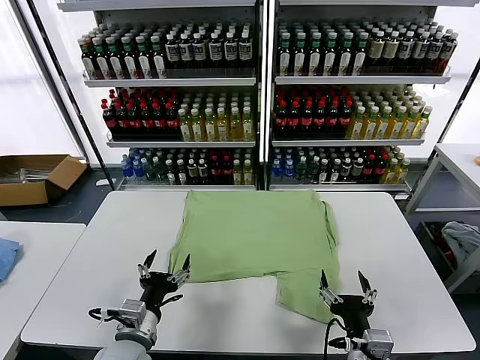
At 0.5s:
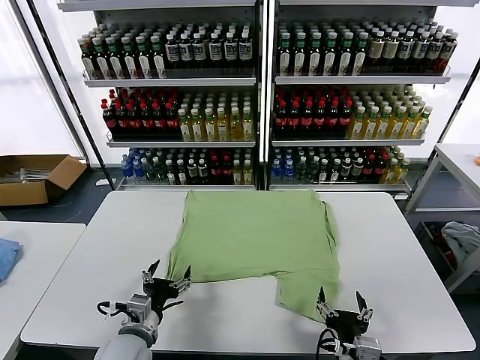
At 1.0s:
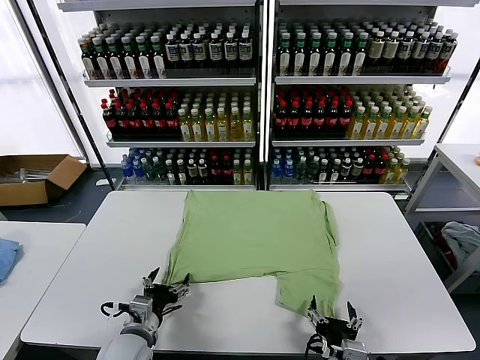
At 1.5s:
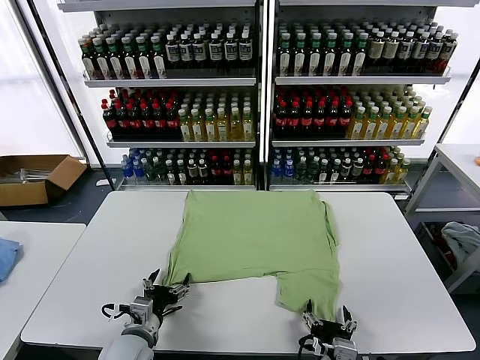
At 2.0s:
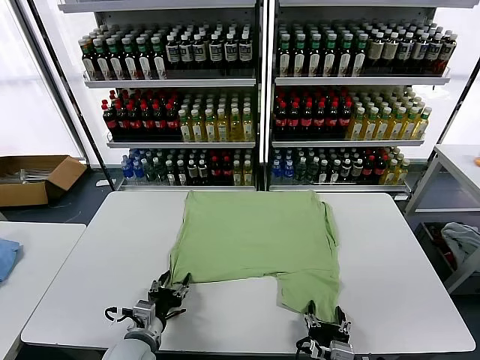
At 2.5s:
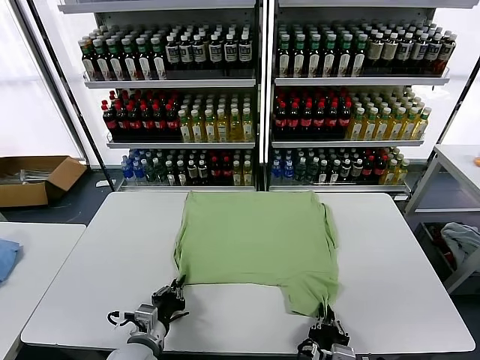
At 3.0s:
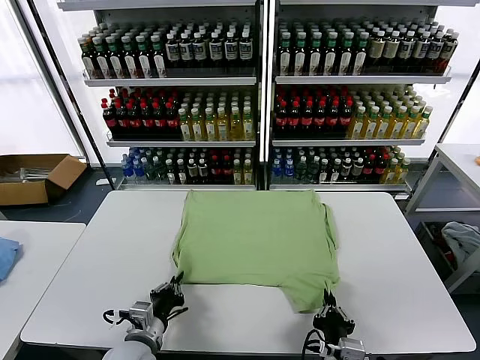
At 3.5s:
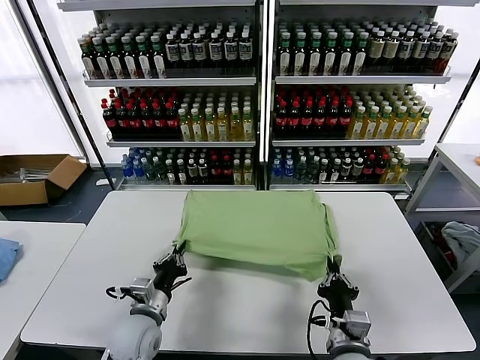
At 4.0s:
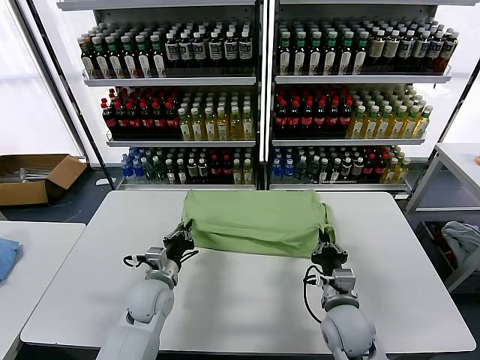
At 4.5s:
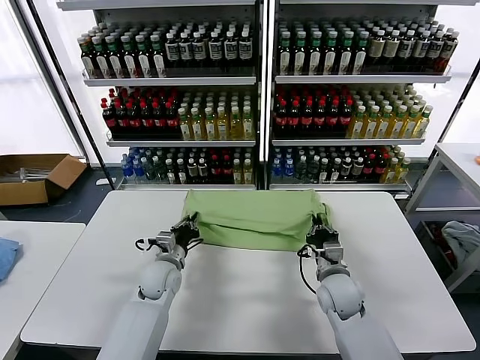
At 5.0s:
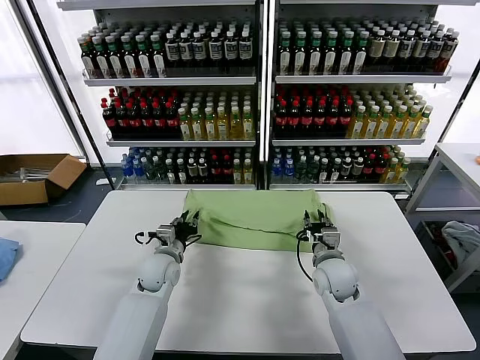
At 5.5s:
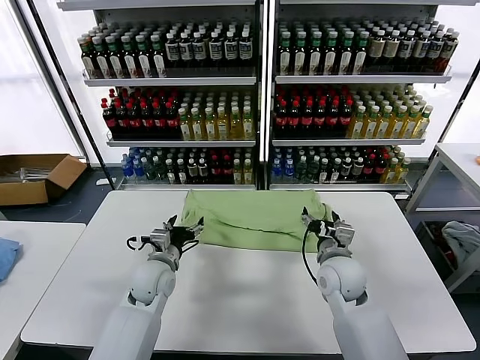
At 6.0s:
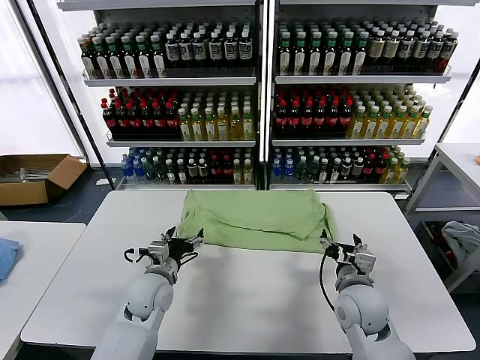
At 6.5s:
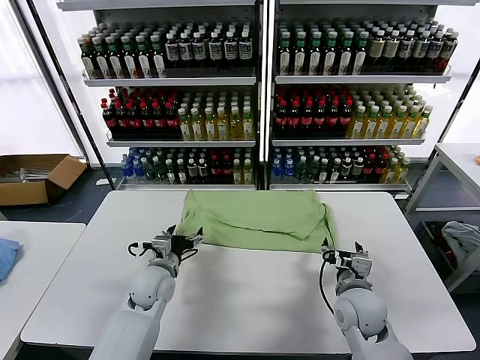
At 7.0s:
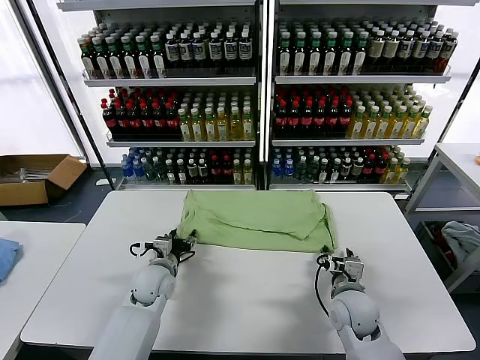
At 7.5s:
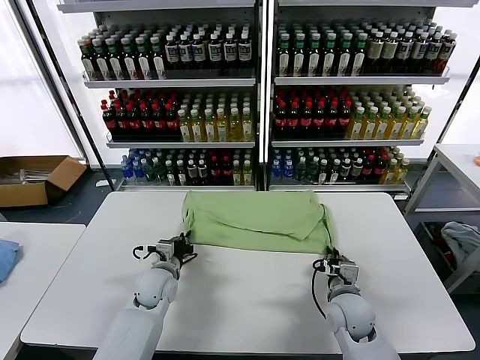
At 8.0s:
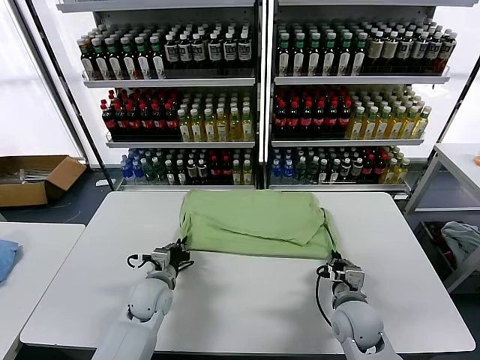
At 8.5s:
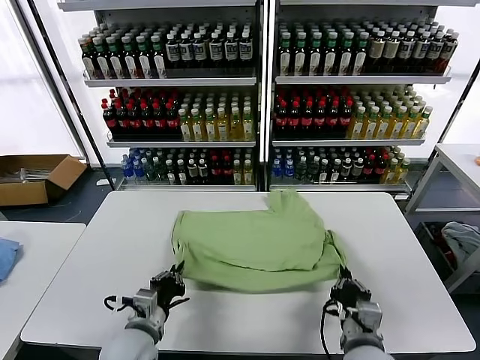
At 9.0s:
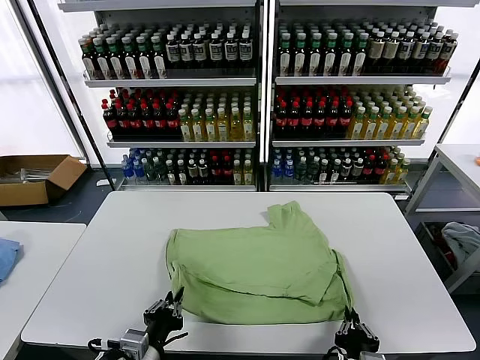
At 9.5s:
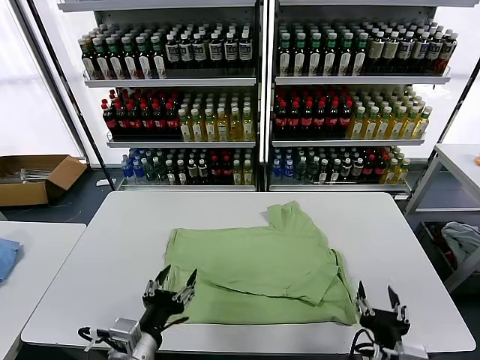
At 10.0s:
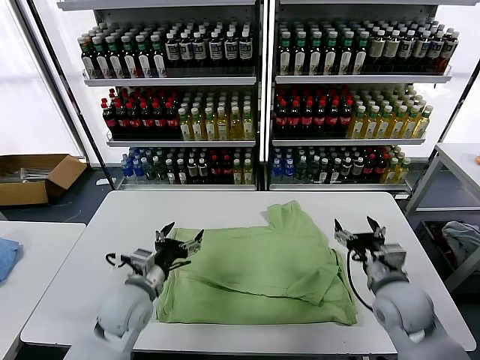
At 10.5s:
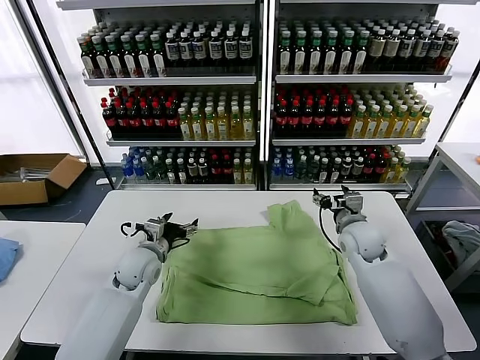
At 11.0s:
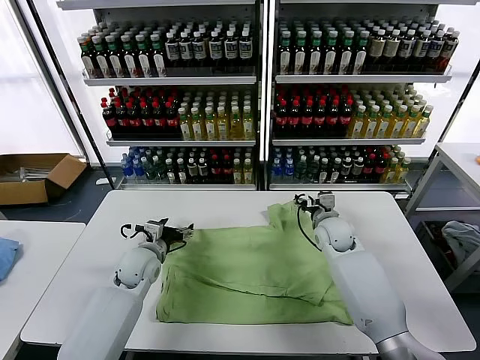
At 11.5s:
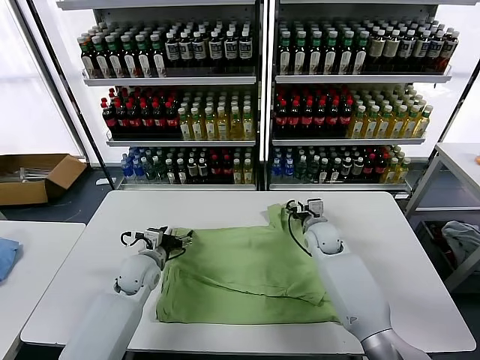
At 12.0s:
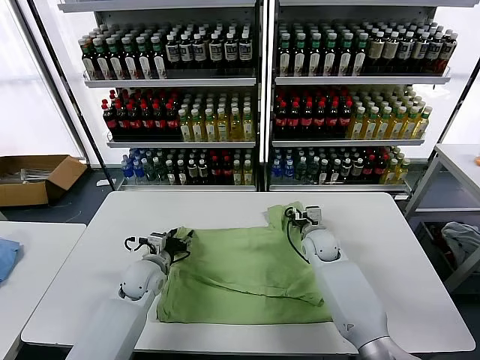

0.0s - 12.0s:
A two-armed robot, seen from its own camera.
Task of the whole recording: fold and organize the clothes.
Step, 0.0s - 2.5s: use both grippers simultaneously to clamp the lower edge of the clothing fabric.
Step, 3.0s - 5.0s: use both grippers to drag the lower edge of the fabric forward and fold it over the upper edge.
Step, 5.5s - 9.0s: Drag the clothes downward with both gripper.
2.0s - 4.0s: Both grippers travel together forward, roughly 15 cm. The left gripper closes its fingers. Meanwhile the right gripper closes.
4.0s - 6.0s: The right gripper travels forward and back again, approximately 10 cm each way, and opens up, while the left gripper opens.
6.0s - 8.0s: The right gripper closes up. The left gripper closes.
8.0s - 10.0s: The right gripper heads upward and to the right, covering approximately 10 cm, goes backward and returns, some 20 cm each way, and opens up, while the left gripper shifts some 10 cm upward, travels backward and back again, approximately 20 cm each way, and opens up.
10.0s - 12.0s: The right gripper heads forward, downward and to the left, covering some 20 cm, and closes its fingers. Meanwhile the left gripper goes about 10 cm forward and downward, and closes up.

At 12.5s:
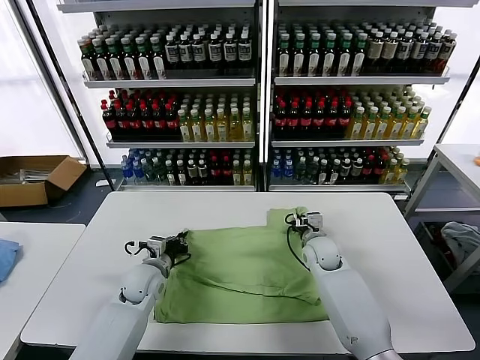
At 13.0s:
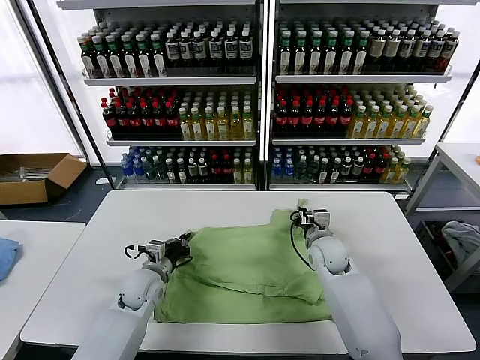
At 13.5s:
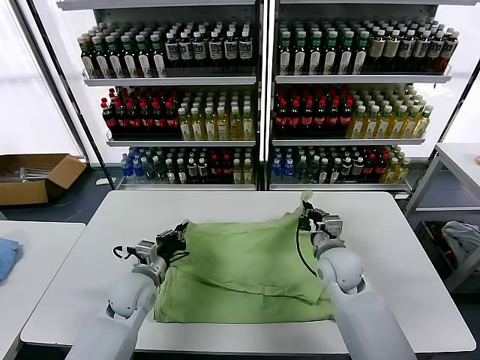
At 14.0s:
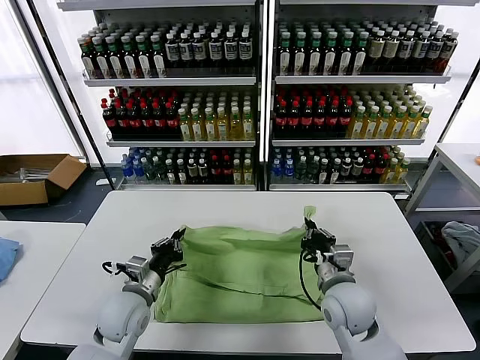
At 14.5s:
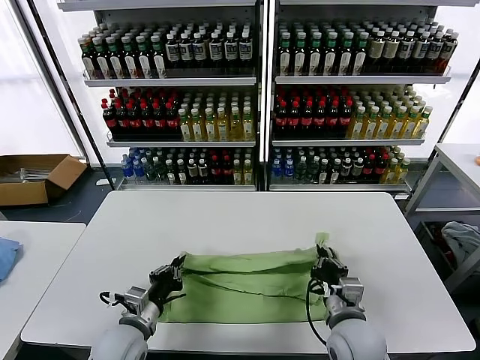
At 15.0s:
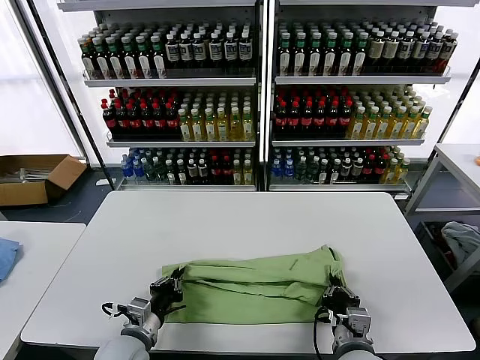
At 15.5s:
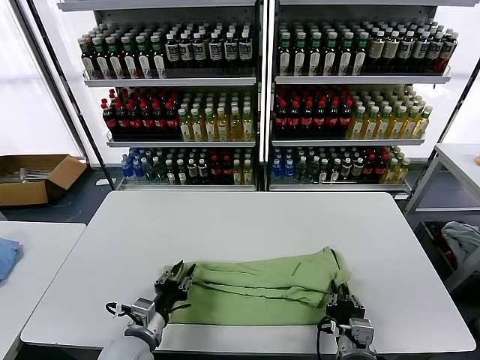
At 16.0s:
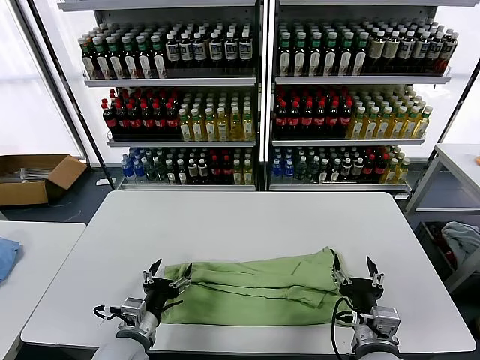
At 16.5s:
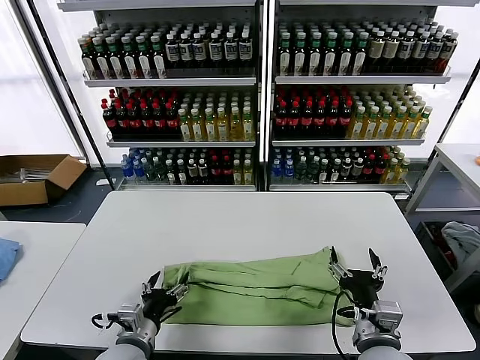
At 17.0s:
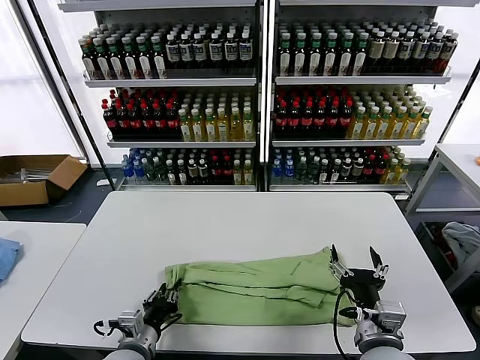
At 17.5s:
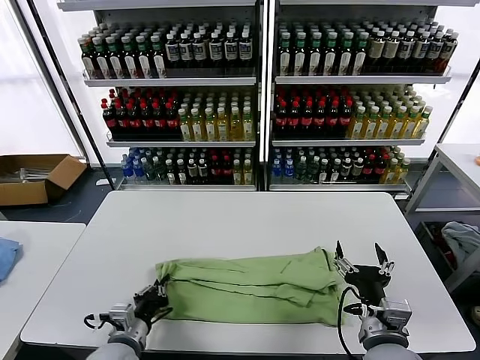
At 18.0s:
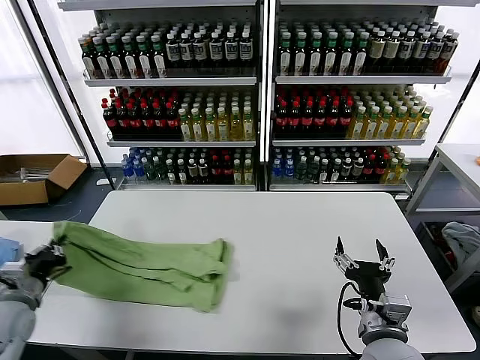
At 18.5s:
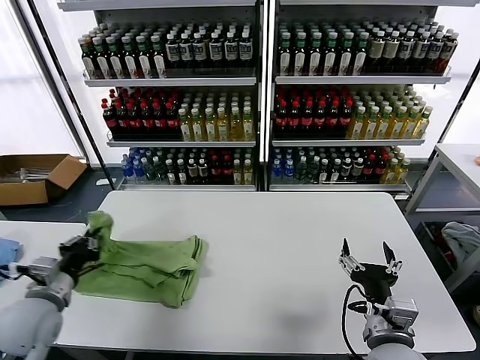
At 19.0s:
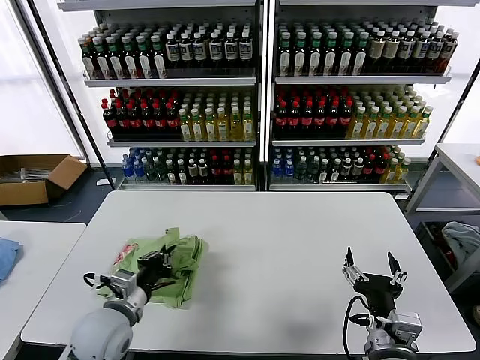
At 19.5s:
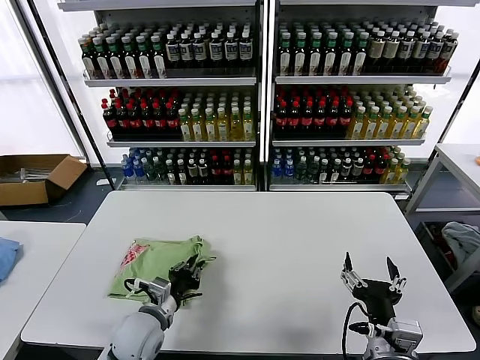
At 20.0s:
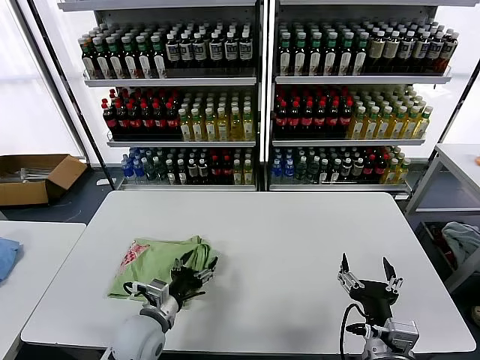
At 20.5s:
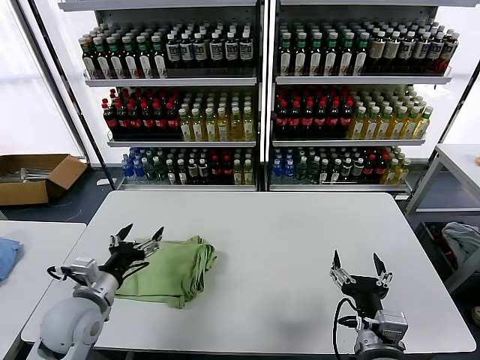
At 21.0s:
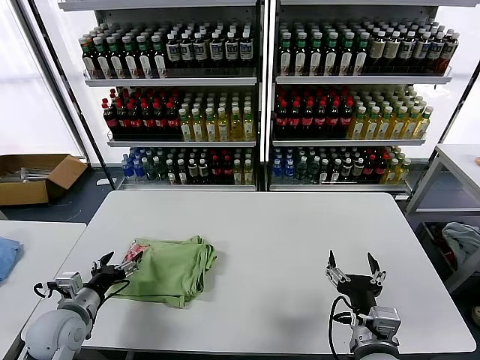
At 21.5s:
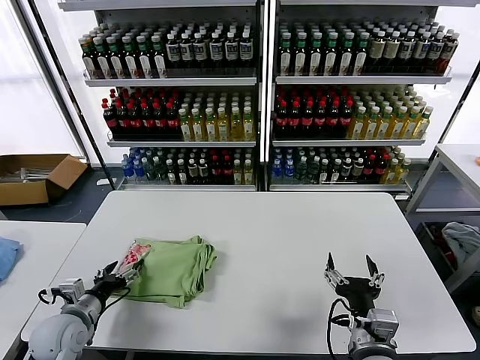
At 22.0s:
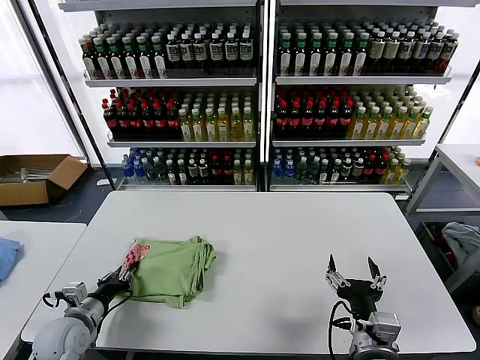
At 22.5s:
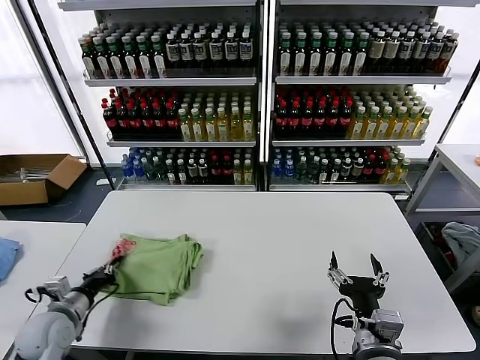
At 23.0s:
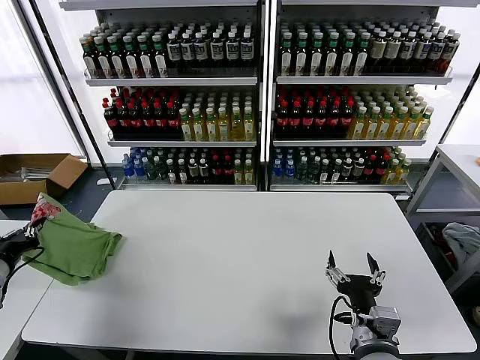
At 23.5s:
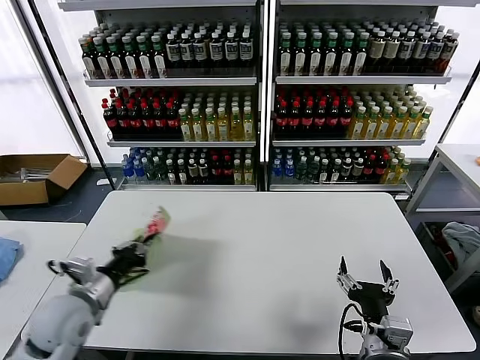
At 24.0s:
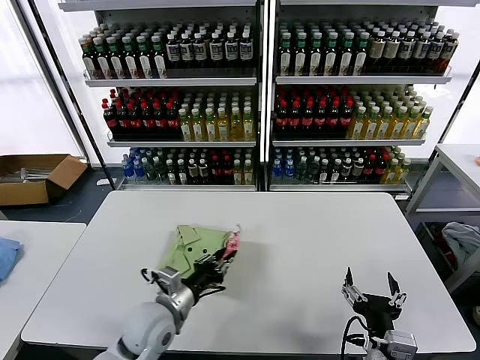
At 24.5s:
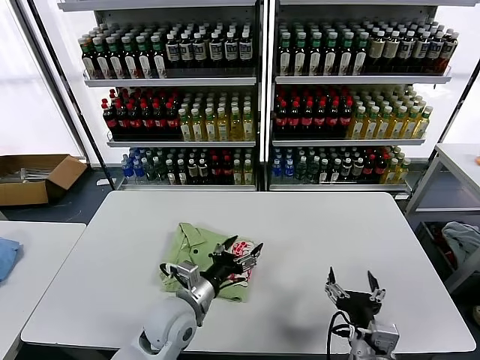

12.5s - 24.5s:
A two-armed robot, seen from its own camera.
Task of the whole recording: fold and organize the clothes.
Step, 13.0s - 15.5s: use both grippers to drag the upper edge of the fabric backward and fold it over the lower edge.
Step, 16.0s - 17.0s: use the left gripper to clamp the left edge of the fabric.
Step, 17.5s - 20.0s: use the left gripper to drag the left edge of the fabric to the left and folds it over the right edge.
Step, 20.5s - 24.0s: Flip the folded clothes over with left gripper.
12.5s - 14.5s: The right gripper goes some 25 cm backward. The left gripper heads backward, covering approximately 15 cm.
14.5s - 16.5s: The right gripper shifts by about 5 cm, and opens its fingers; the left gripper opens its fingers.
16.5s - 18.5s: The left gripper shifts approximately 20 cm to the left and upward, and closes.
18.5s - 20.5s: The left gripper travels to the right by approximately 5 cm, and opens up.
20.5s - 22.5s: The left gripper is displaced to the left and downward by roughly 10 cm, and closes.
22.5s - 24.5s: The left gripper travels to the right by roughly 25 cm, and opens its fingers.

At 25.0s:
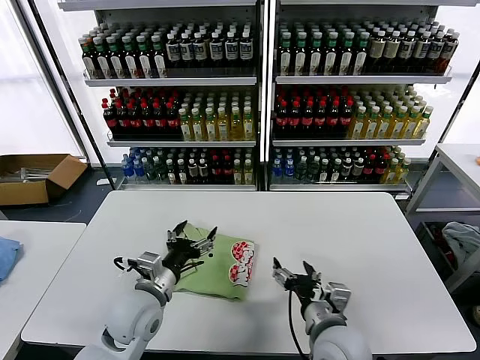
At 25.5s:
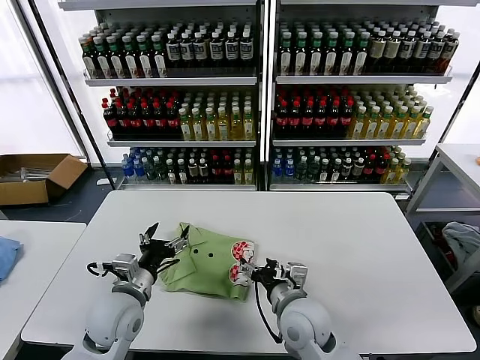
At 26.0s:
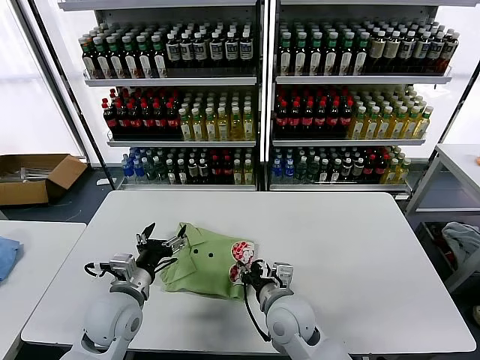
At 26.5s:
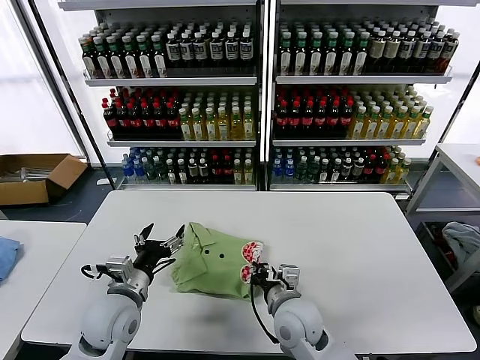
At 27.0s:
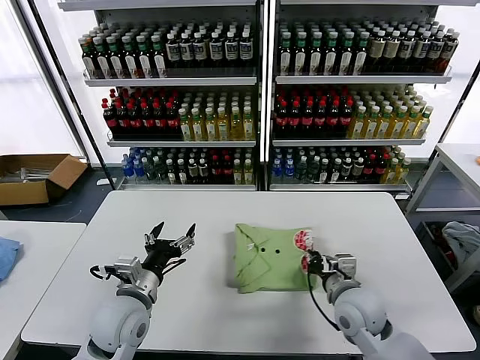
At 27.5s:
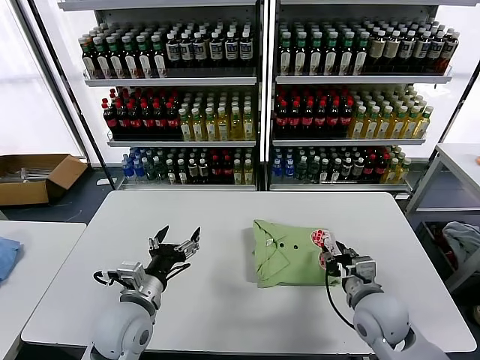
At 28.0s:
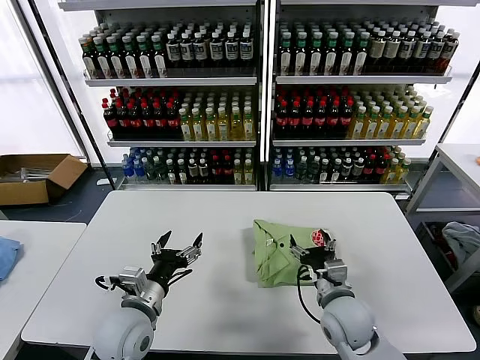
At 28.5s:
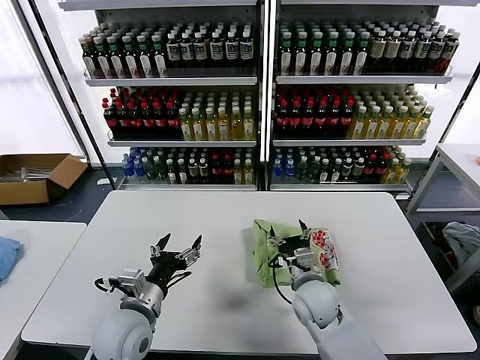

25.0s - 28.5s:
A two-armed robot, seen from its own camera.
Task of the whole recording: fold and organize the clothes.
25.0s - 27.0s: The right gripper moves forward and to the right, some 10 cm, and closes up.
27.0s - 28.5s: The right gripper shifts roughly 5 cm to the left, and opens up.
